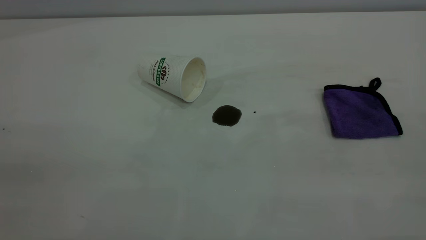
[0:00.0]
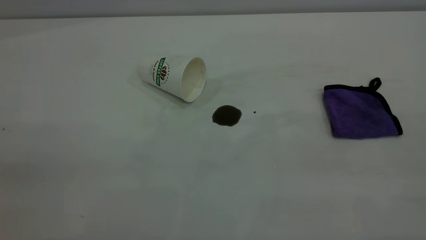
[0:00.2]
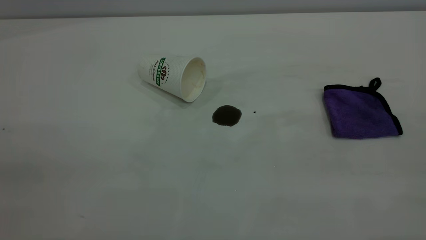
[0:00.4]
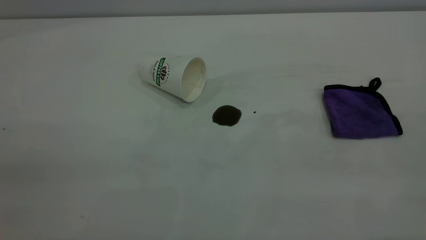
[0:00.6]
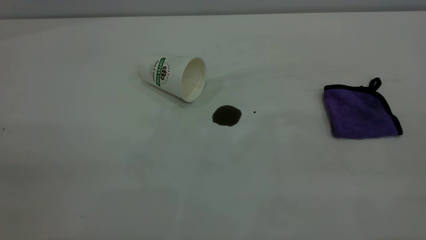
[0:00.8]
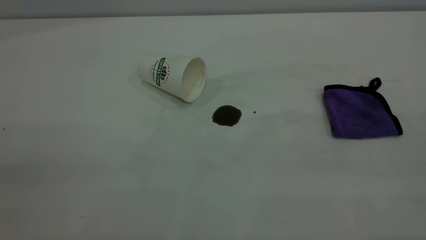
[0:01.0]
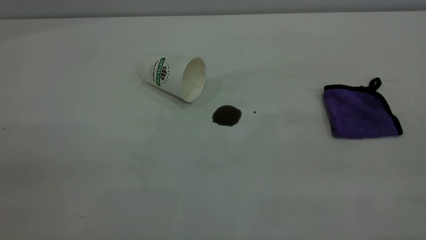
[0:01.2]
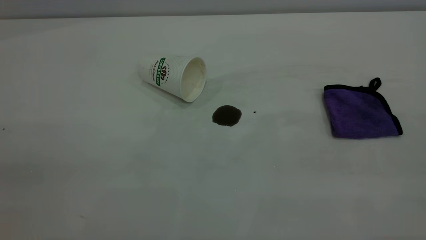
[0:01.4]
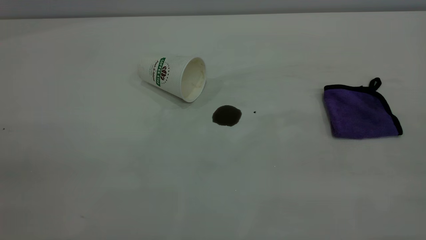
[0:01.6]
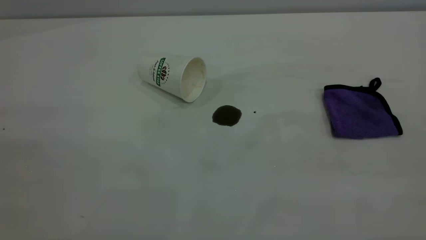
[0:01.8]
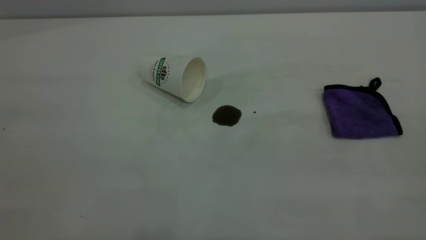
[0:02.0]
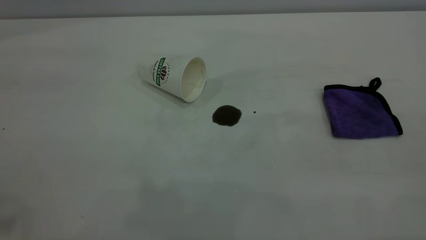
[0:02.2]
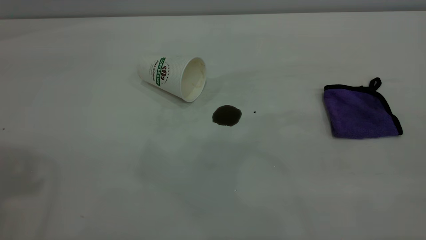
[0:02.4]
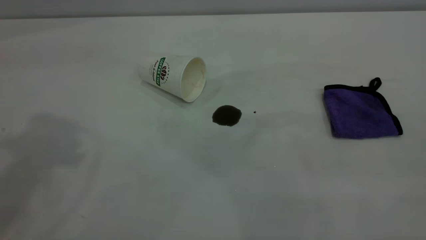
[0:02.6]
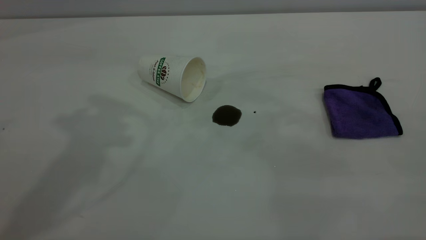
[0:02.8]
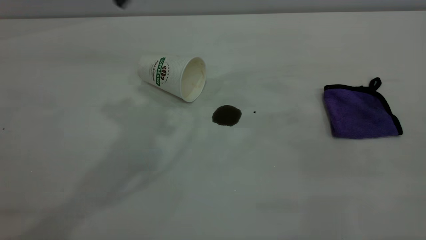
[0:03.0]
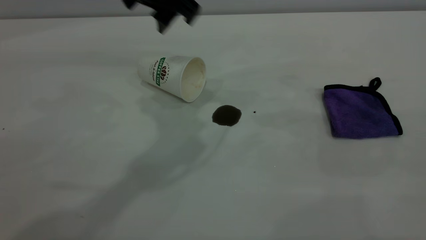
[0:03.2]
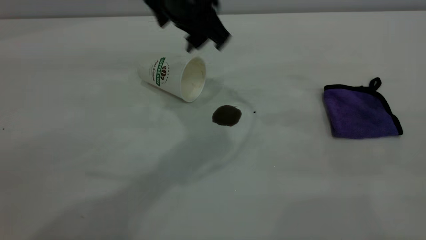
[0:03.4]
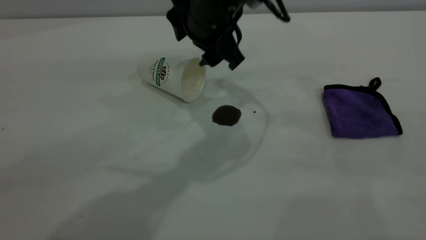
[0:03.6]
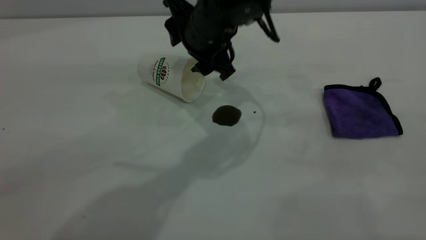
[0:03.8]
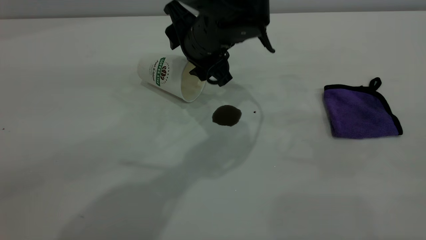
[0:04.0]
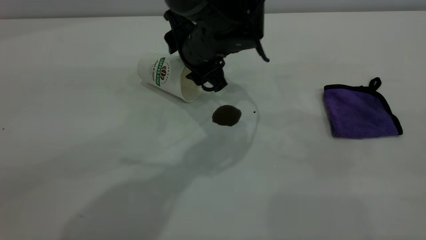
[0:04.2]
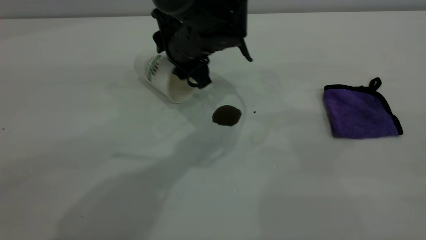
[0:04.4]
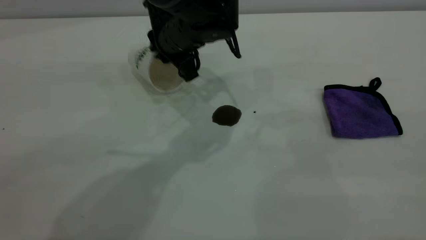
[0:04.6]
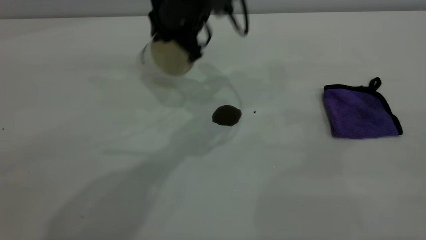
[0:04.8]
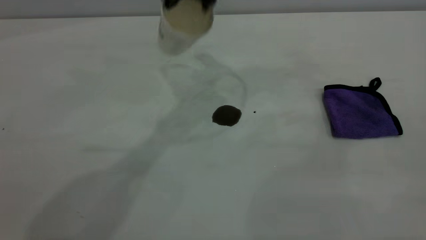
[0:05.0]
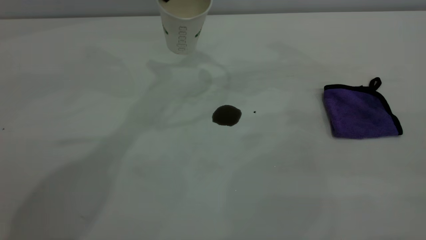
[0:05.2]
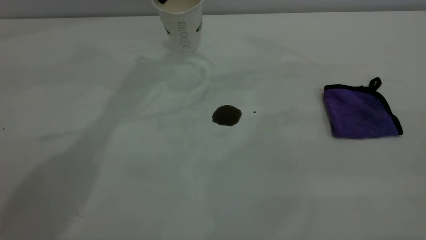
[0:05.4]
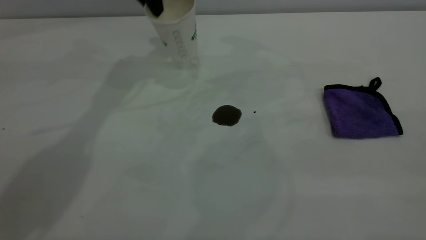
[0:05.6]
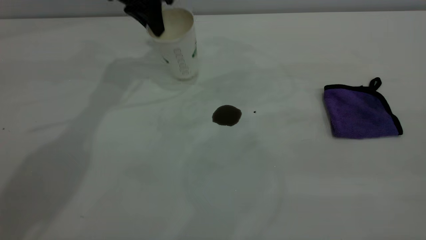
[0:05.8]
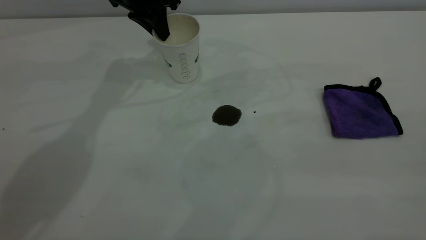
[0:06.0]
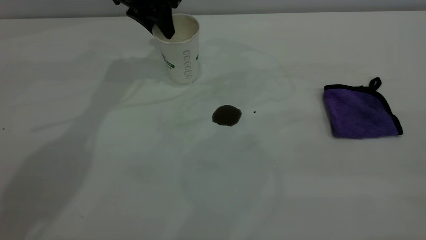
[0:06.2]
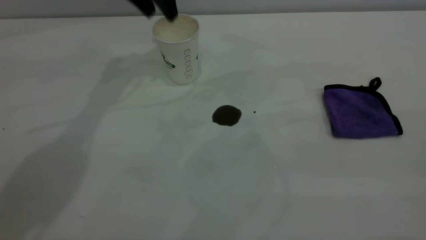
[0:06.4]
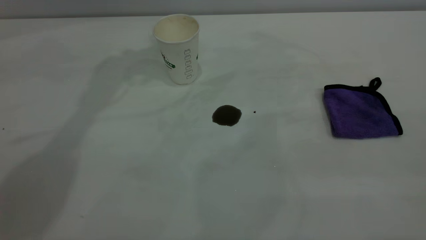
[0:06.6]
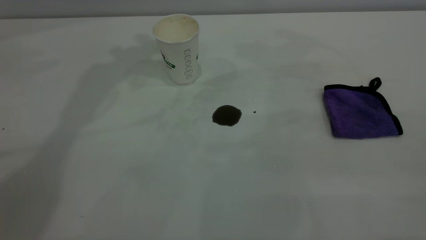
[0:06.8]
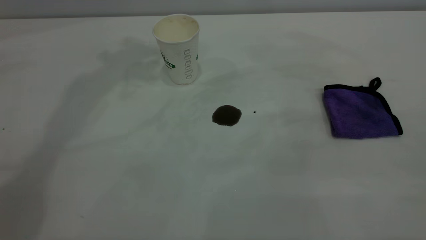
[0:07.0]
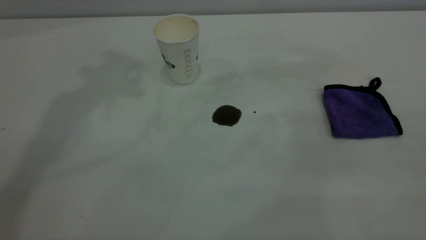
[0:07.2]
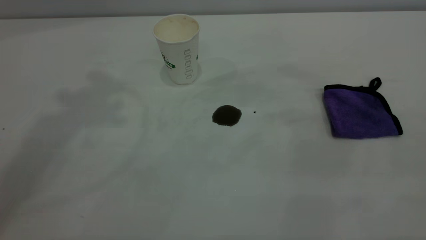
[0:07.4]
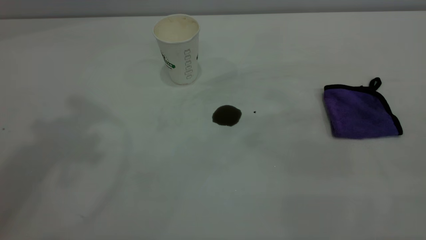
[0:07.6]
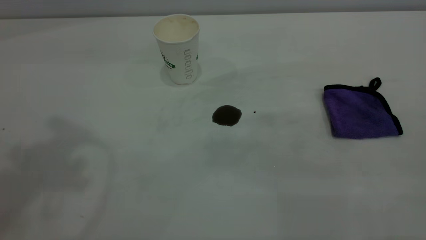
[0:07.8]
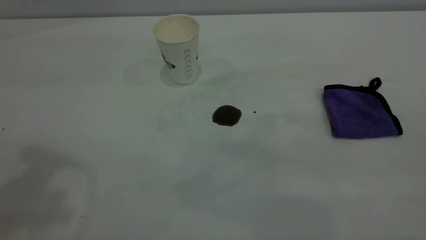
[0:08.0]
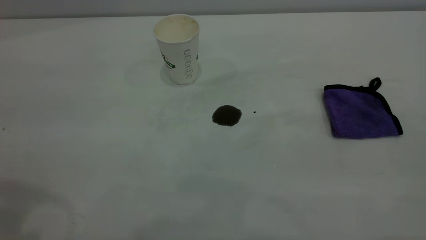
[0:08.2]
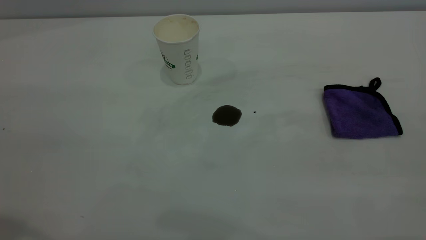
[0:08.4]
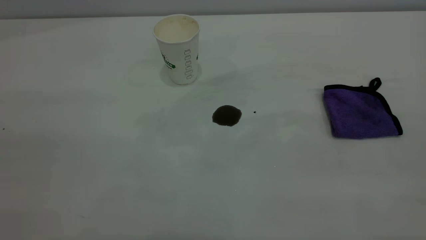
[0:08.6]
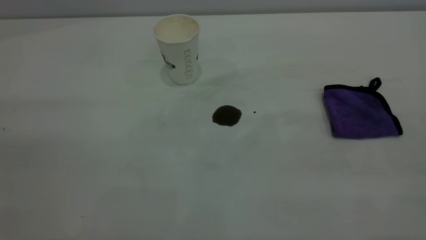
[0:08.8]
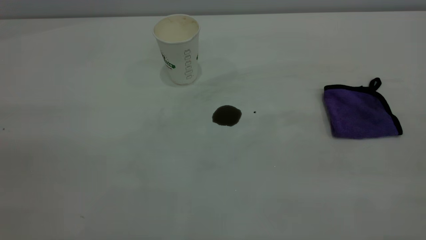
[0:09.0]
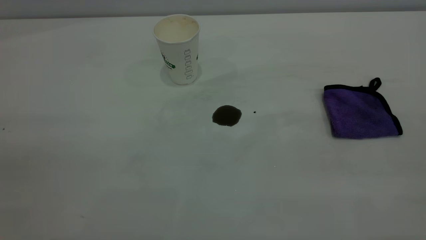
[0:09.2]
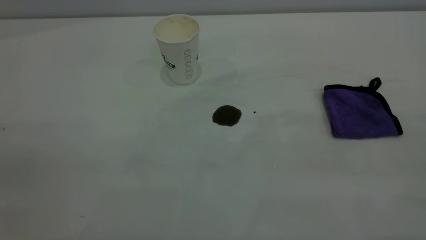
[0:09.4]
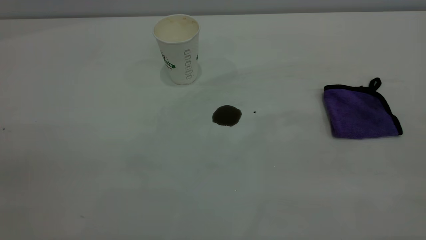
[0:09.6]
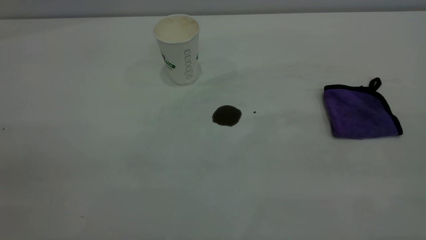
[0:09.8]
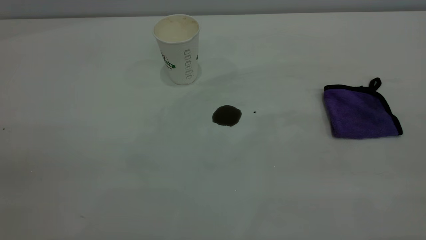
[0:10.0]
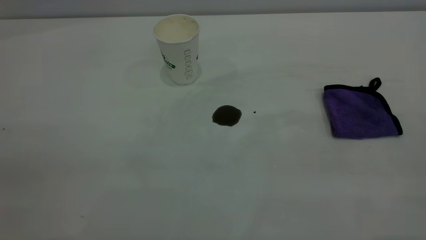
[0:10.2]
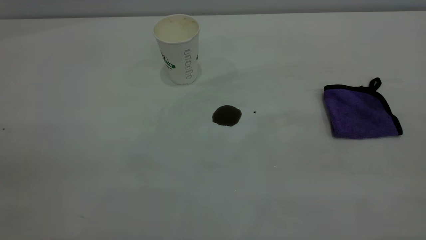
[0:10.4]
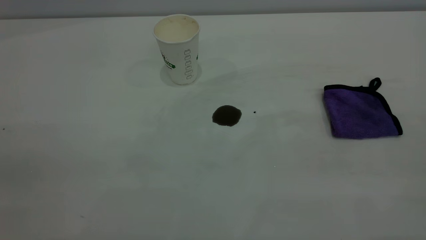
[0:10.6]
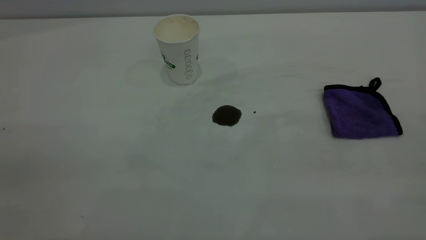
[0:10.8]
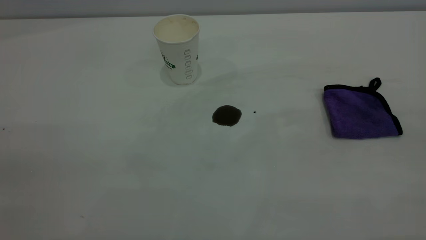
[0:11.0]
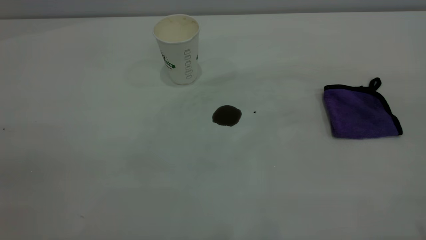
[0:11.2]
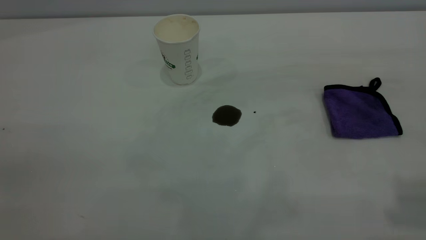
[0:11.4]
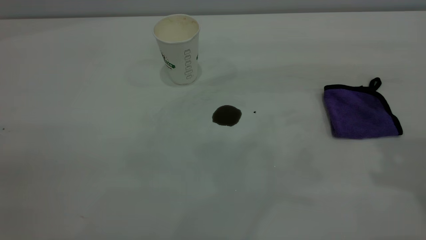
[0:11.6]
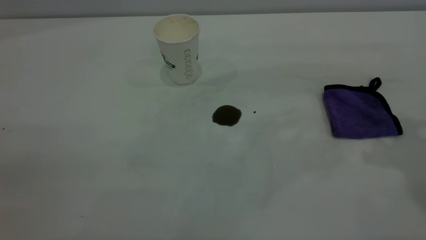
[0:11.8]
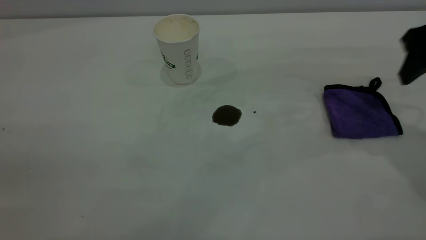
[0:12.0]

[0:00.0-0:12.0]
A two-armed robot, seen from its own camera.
Task of the whole recording: the left gripper pick up the fallen cup and place it upright, the right gripper grasp the purple rag and wipe the coffee stain on the table, the right gripper put the purple rag back in its original position.
Step, 0:00.0 to 0:06.4: Stand the paper cup upright.
0:00.0 to 0:01.6: Neither gripper changes place.
0:03.0 to 0:04.4: The left gripper goes roughly 20 cm downward and to the right.
0:04.4 to 0:06.0: The left gripper shifts roughly 20 cm to the left, forward and upward, and closes up.
0:06.0 to 0:07.6: The left gripper travels upward and backward by about 35 cm, and opens up.
0:10.4 to 0:12.0: The right gripper moves forward and downward, some 35 cm.

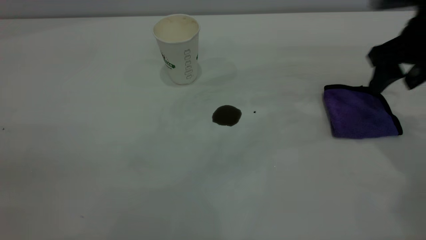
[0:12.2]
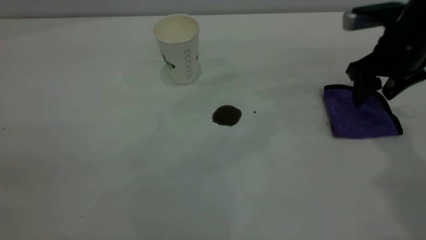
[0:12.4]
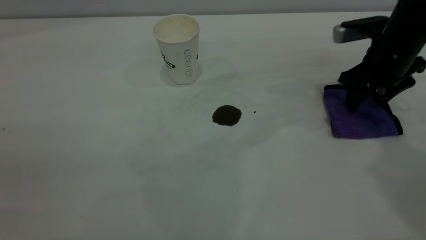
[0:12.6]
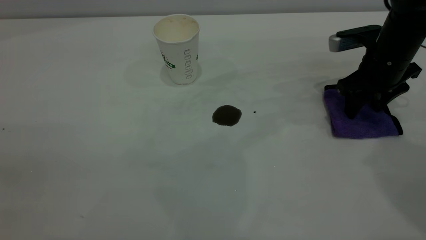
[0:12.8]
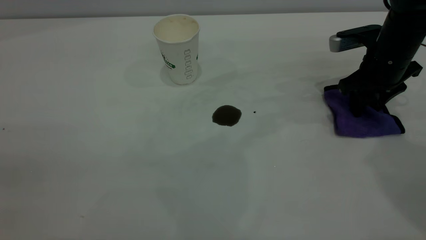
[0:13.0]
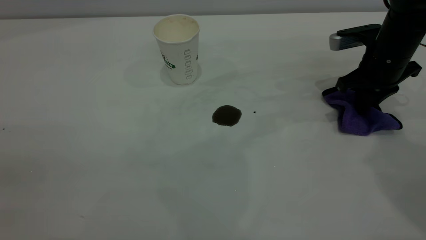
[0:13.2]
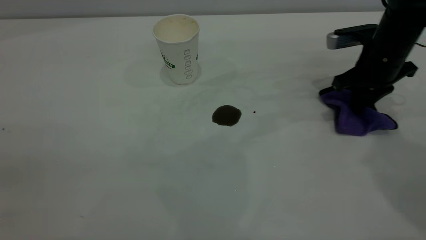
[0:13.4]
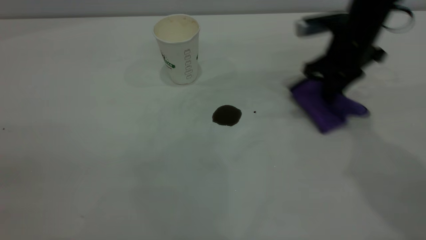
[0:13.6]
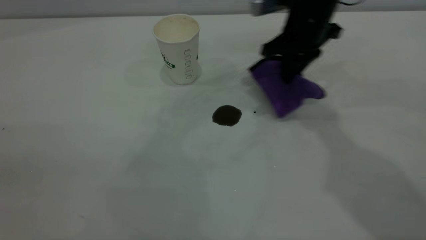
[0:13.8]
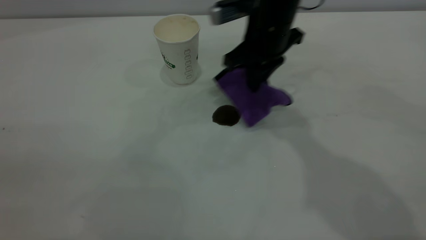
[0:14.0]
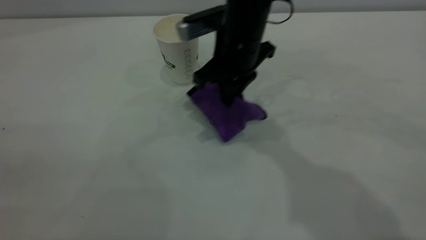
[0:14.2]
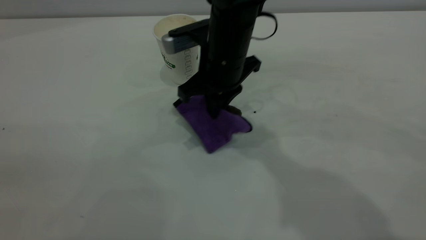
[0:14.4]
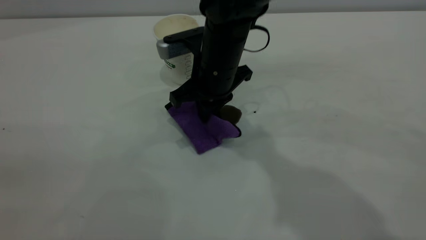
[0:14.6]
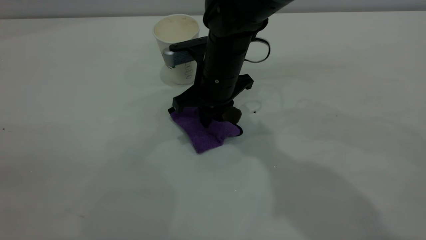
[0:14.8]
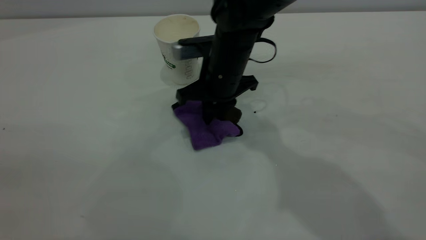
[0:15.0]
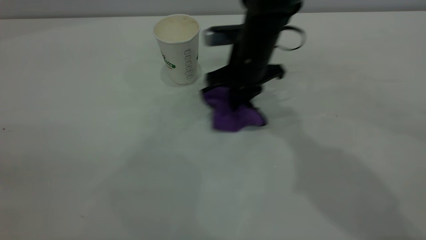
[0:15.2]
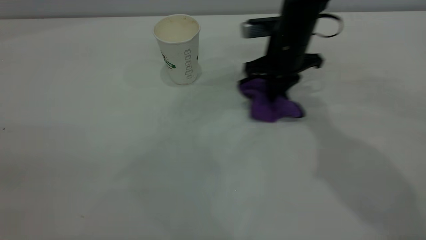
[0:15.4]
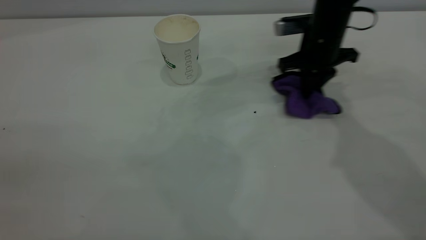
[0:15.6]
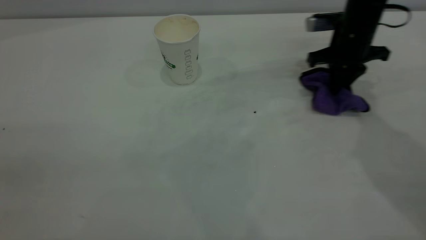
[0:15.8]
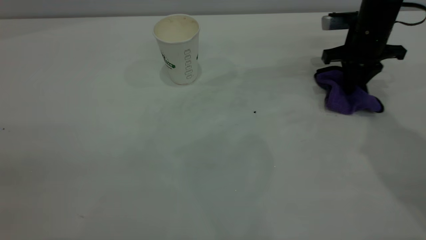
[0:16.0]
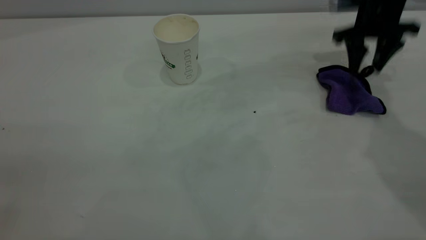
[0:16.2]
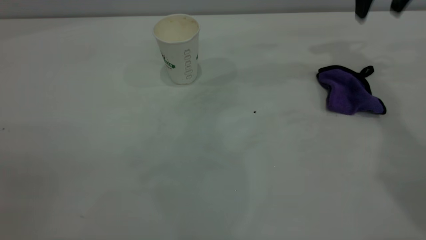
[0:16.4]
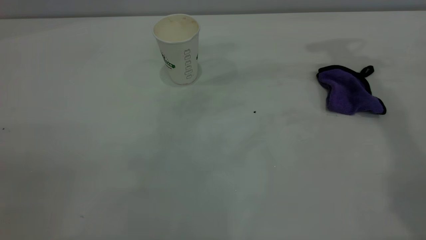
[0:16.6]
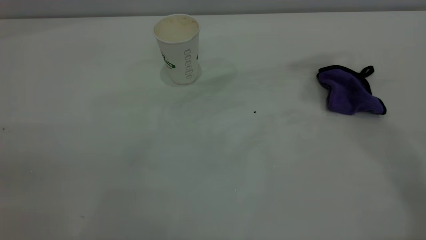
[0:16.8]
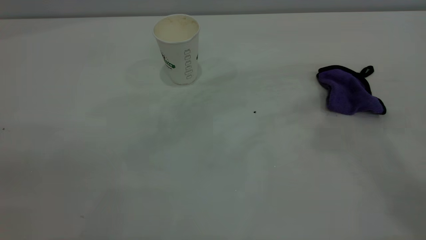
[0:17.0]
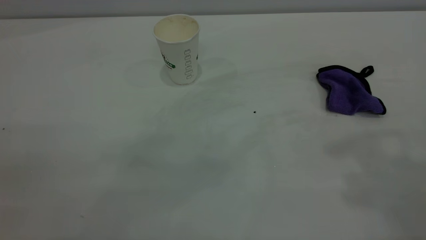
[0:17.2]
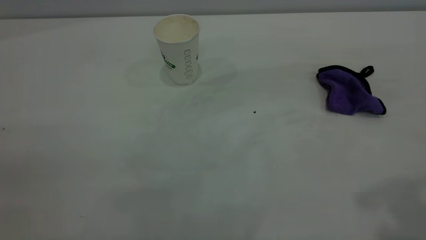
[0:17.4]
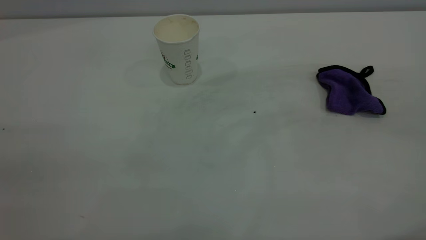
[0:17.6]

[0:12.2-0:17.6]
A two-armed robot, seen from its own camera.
Task of the whole recording: the left gripper pick up the fallen cup and place it upright, the right gripper grasp the purple rag and wipe the coffee stain on the table, the right gripper put the purple rag back in its original position.
Step, 0:12.2 to 0:16.2: Wipe the stains off the table with a rag.
0:12.2 to 0:13.6: The right gripper travels to the left and forward by roughly 10 cm, and closes.
0:13.6 to 0:15.0: The right gripper shifts some 15 cm to the left.
0:15.0 to 0:16.2: The right gripper moves to the right, roughly 25 cm, and opens.
0:16.2 to 0:17.6: The right gripper moves backward and upward, some 50 cm.
